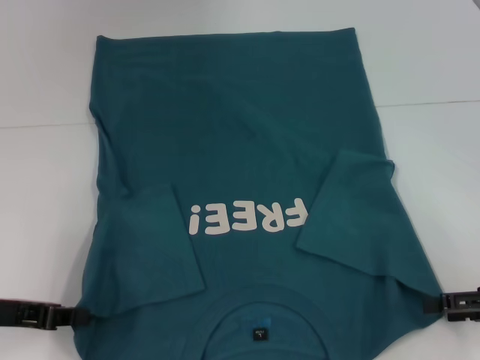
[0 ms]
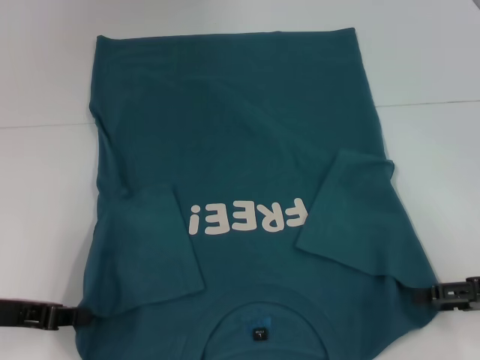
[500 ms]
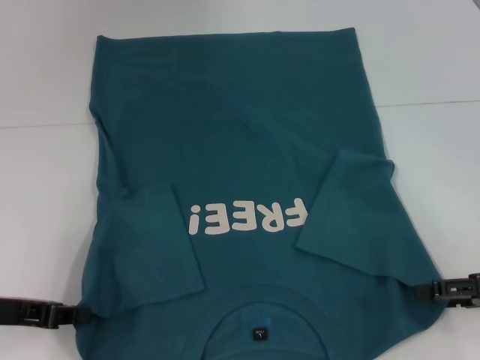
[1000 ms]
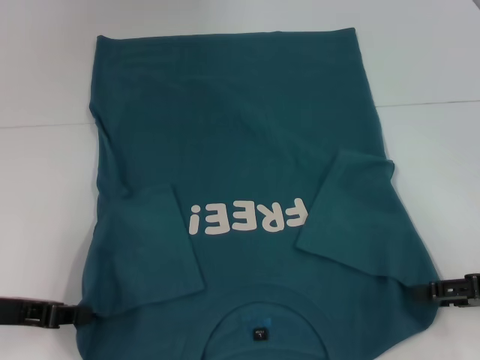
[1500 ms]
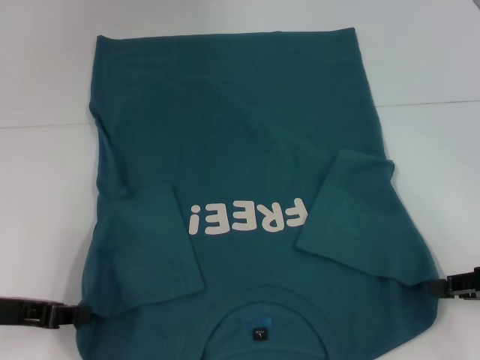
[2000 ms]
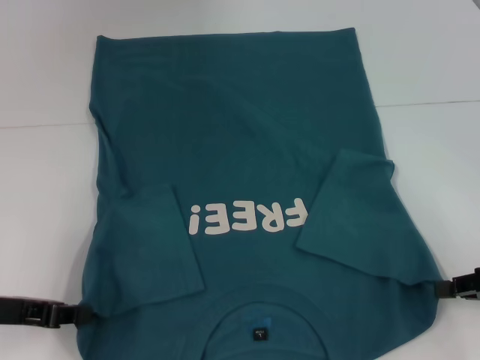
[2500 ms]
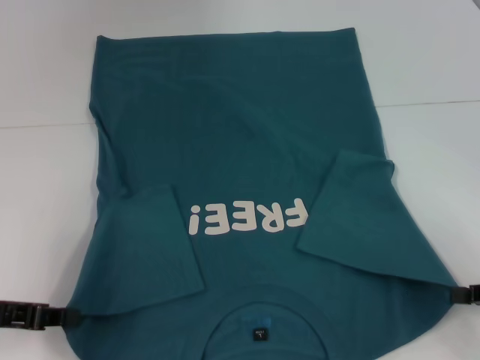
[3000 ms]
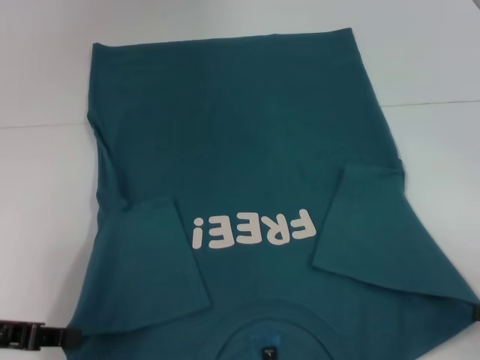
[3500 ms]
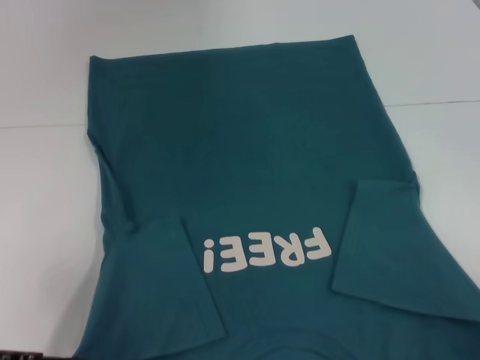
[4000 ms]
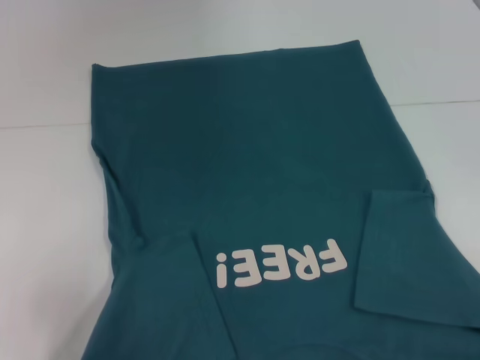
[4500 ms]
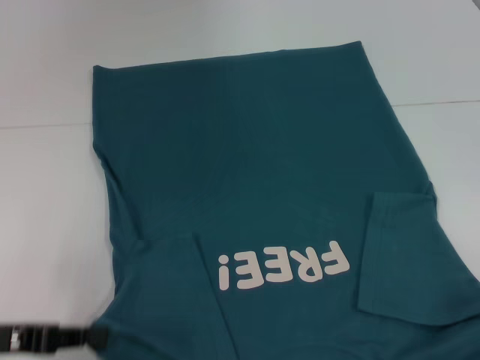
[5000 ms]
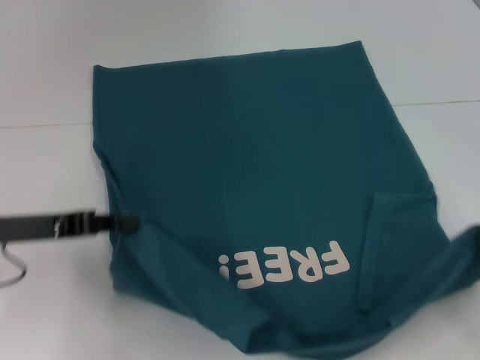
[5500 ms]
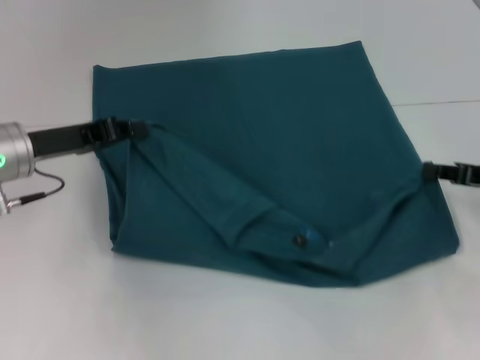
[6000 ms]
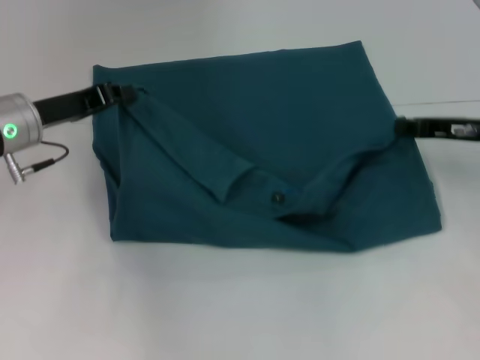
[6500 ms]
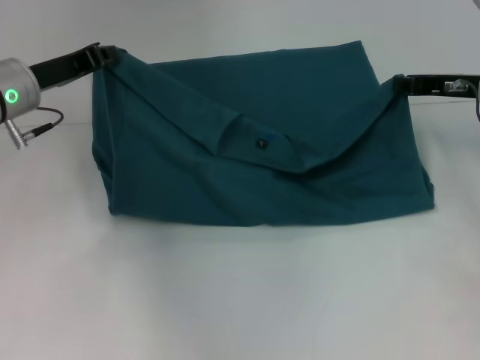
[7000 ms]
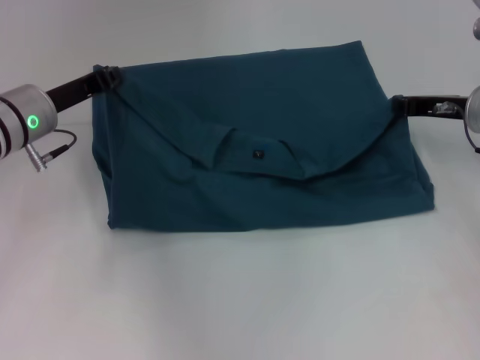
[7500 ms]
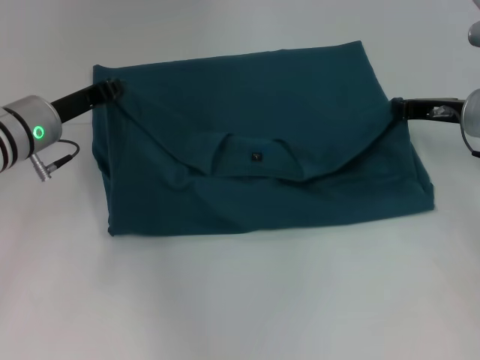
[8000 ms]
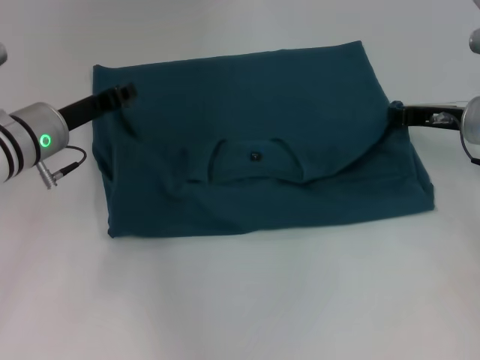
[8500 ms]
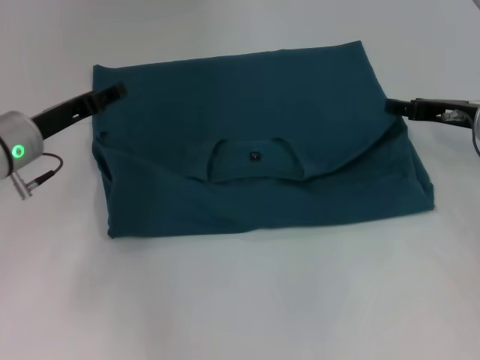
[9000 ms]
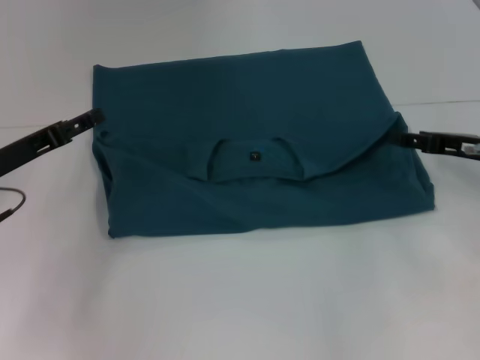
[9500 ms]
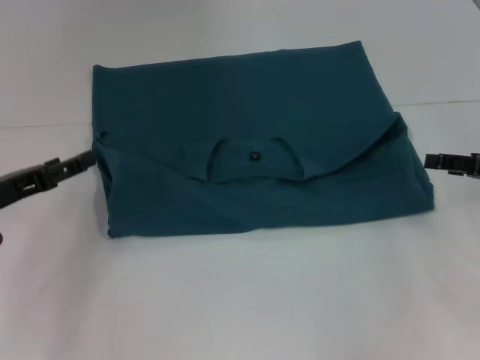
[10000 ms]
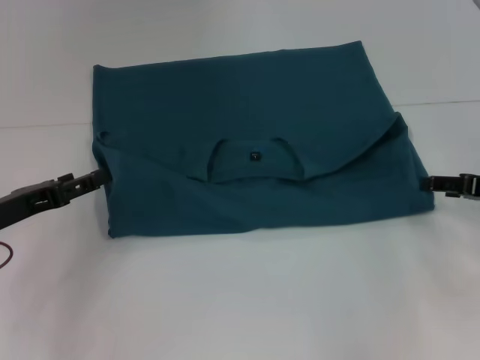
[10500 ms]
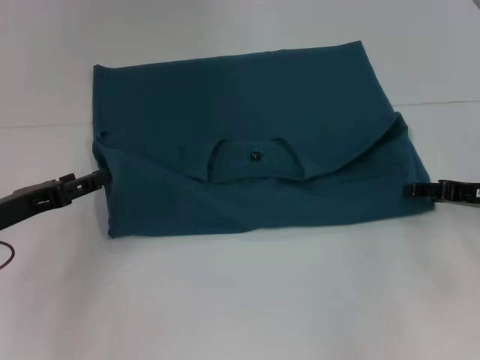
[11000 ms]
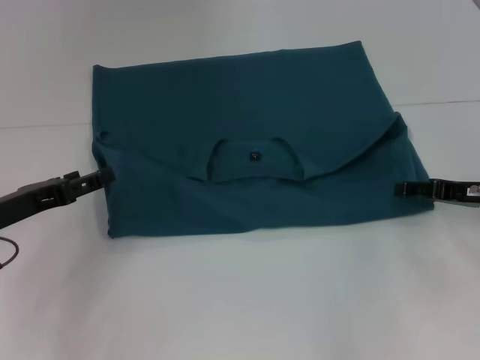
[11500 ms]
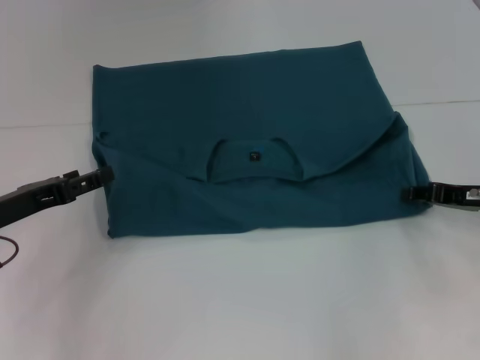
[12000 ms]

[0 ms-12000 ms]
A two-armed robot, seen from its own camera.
Step, 0 ms to 2500 ms: Grab the bottom right corner with your right hand.
Step, 3000 ms to 8500 ms: Fold the clothes to the left.
Step, 3000 ms to 8500 ms: Fold the clothes to the right.
0 ms to 2000 ms: The right gripper closes.
2000 ms to 4000 ms: The right gripper travels backward by about 10 cm, and closes up.
4000 ms to 6000 ms: The right gripper goes approximately 20 cm forward. The left gripper shifts some 15 cm forward and to the right.
6000 ms to 8000 ms: The right gripper travels forward and to the left by some 10 cm.
8000 ms to 10000 ms: The left gripper travels backward and to the left by about 15 cm, and opens up. Meanwhile the right gripper shifts about 10 cm backward and to the right, and opens up.
10000 ms to 12000 ms: The right gripper shifts by about 5 cm.

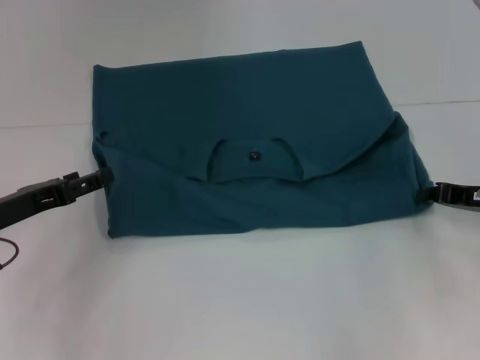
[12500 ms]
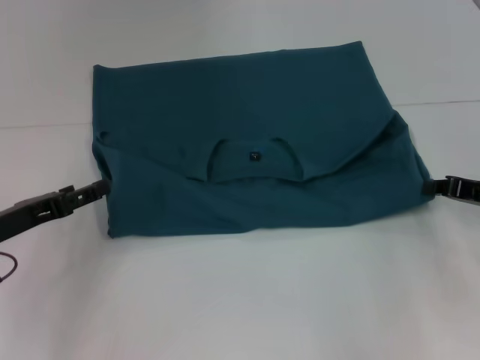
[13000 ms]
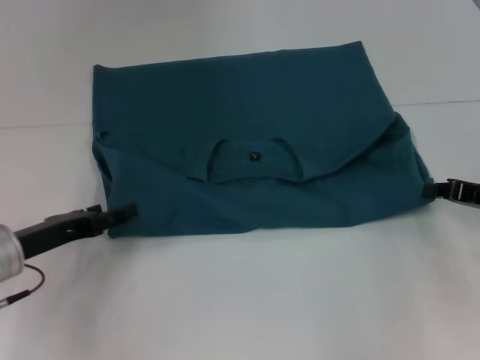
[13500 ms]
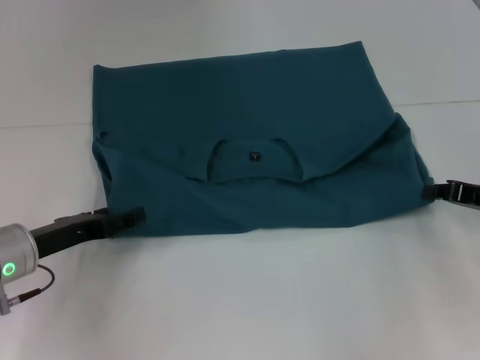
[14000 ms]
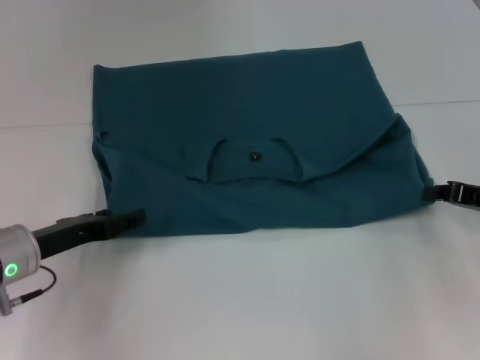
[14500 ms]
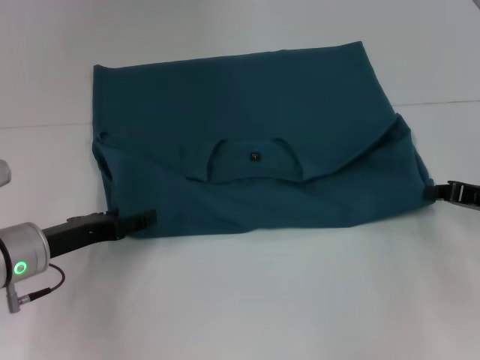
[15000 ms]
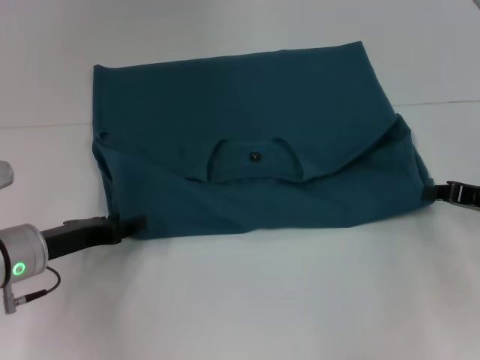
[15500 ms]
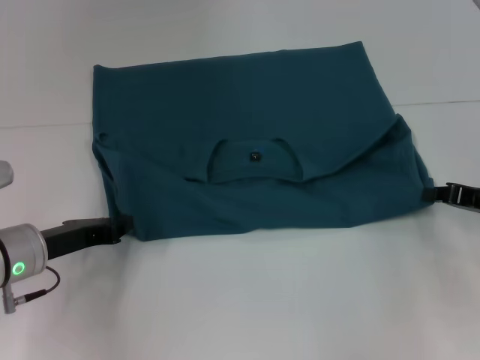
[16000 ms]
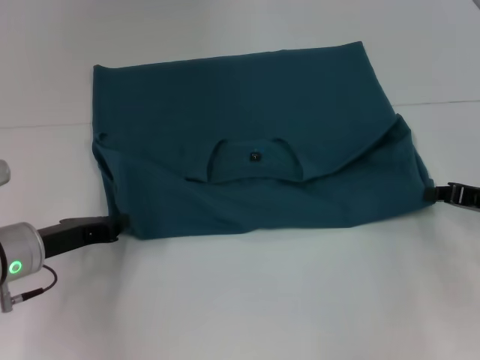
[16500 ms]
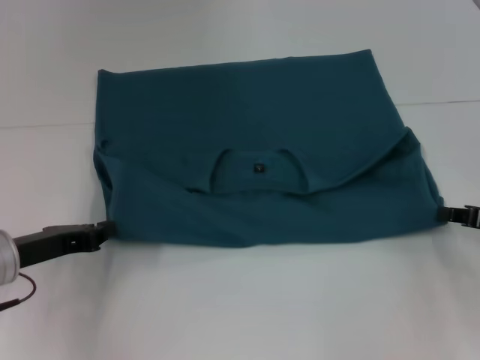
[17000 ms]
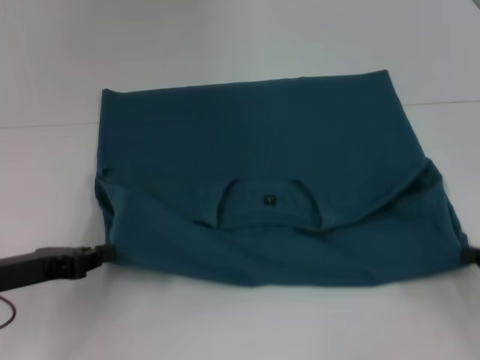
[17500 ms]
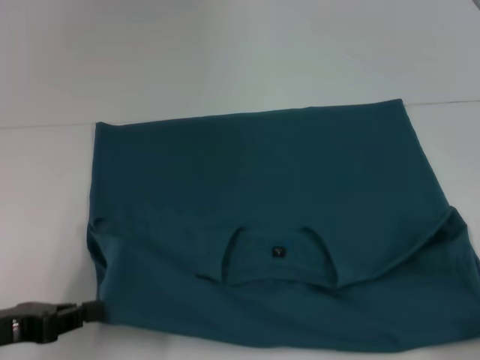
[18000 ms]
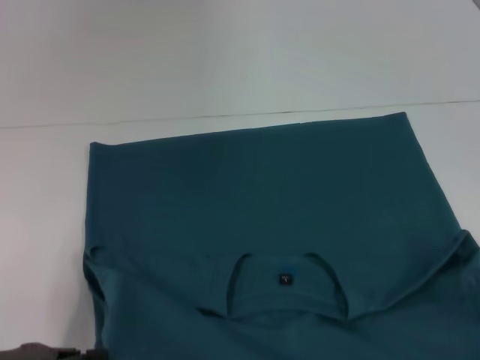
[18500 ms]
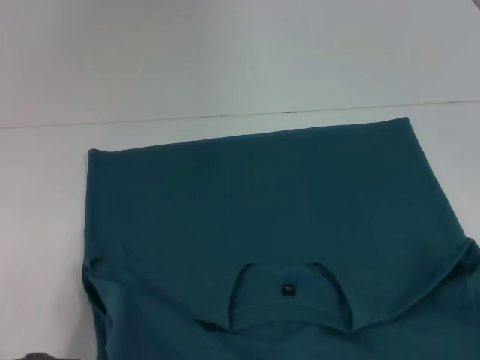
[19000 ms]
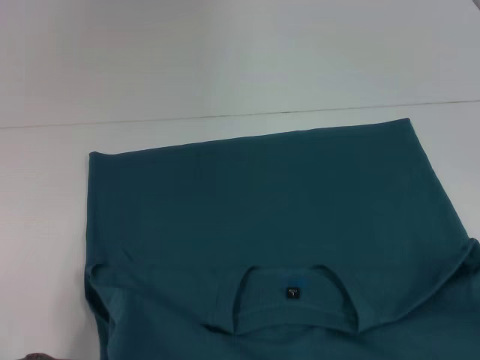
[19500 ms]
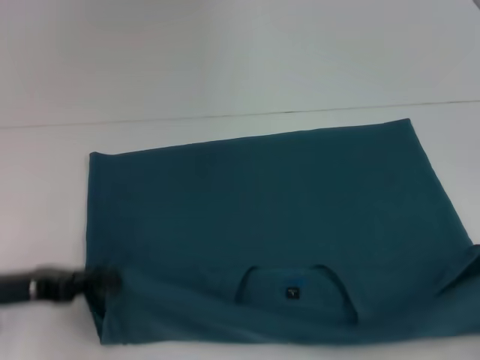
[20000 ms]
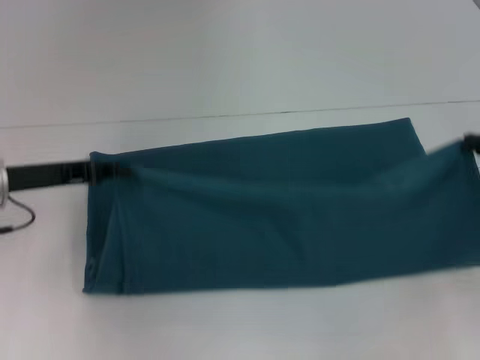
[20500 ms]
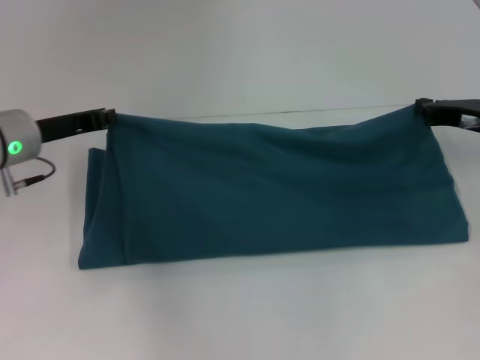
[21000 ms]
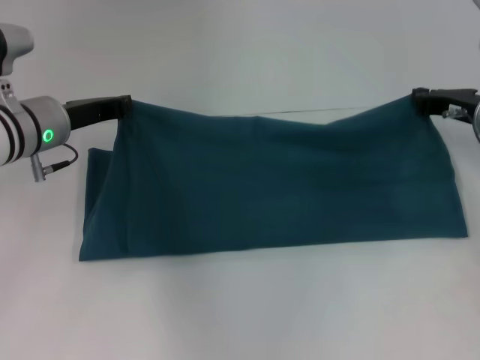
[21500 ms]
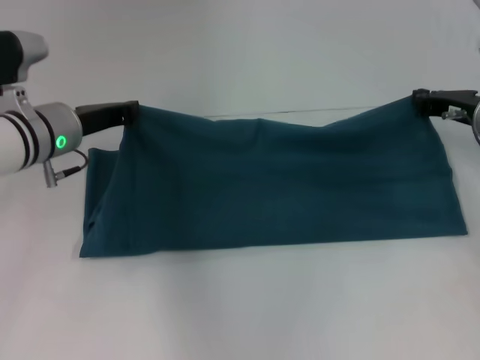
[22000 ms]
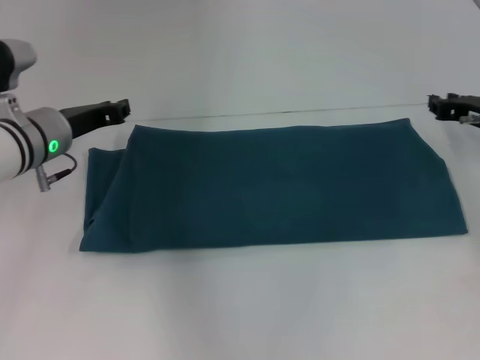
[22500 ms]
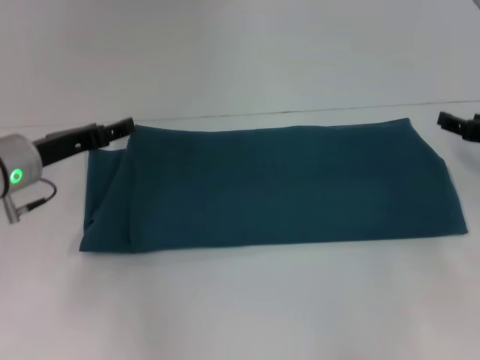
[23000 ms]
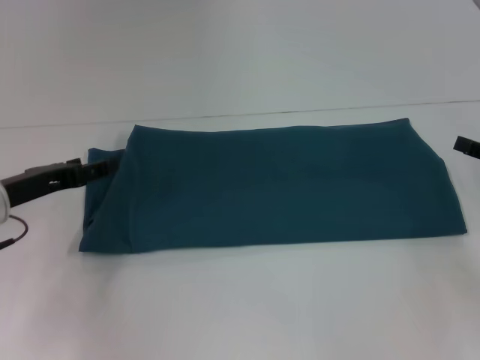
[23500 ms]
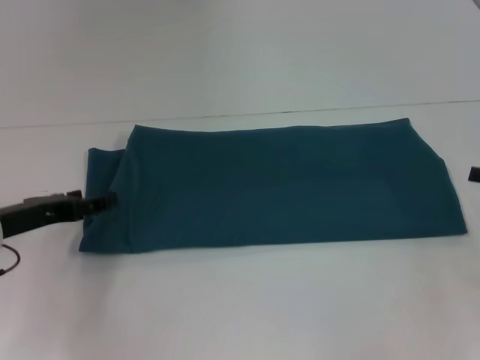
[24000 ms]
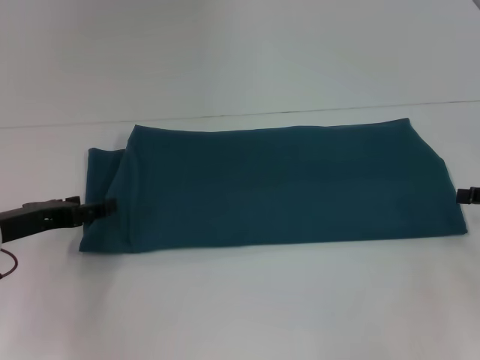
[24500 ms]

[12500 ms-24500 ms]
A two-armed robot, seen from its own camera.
Step, 12500 ms to 19000 ms: Pull the clothes with your left hand.
Step, 12500 ms to 19000 ms: Pull the clothes with your right hand.
Step, 19500 ms to 22500 ms: Fold the clothes to the right.
12500 ms to 14500 ms: The left gripper shifts by approximately 5 cm.
14500 ms to 16500 ms: The left gripper closes its fingers.
16500 ms to 18500 ms: The left gripper goes some 15 cm backward and to the left, while the right gripper travels backward by about 20 cm.
18500 ms to 20500 ms: The grippers both shift forward by about 15 cm.
20500 ms to 22500 ms: The right gripper travels forward and to the left by roughly 10 cm, while the left gripper heads forward and to the right, covering about 10 cm.
22500 ms to 24500 ms: The right gripper shifts some 15 cm backward and to the right, and opens, while the left gripper is displaced backward and to the left by approximately 10 cm, and opens its fingers.

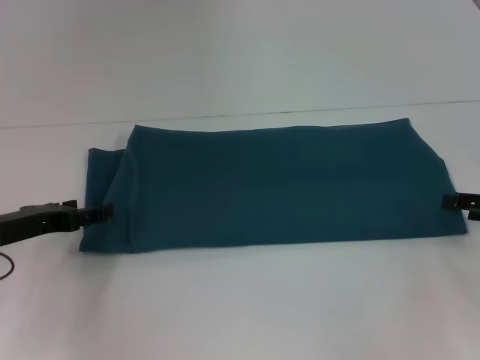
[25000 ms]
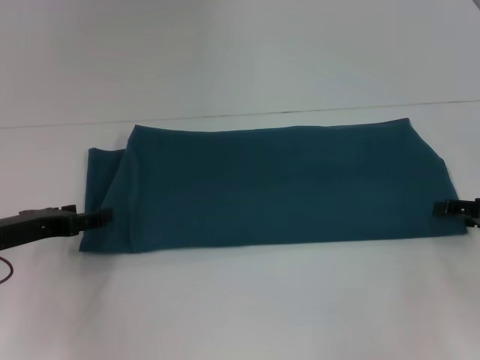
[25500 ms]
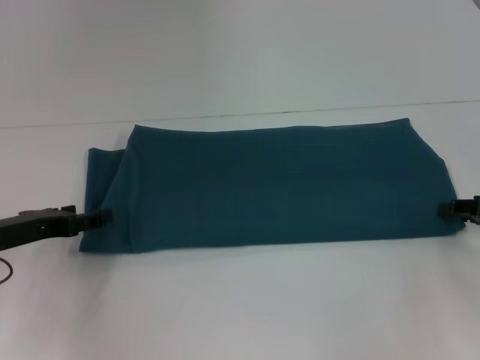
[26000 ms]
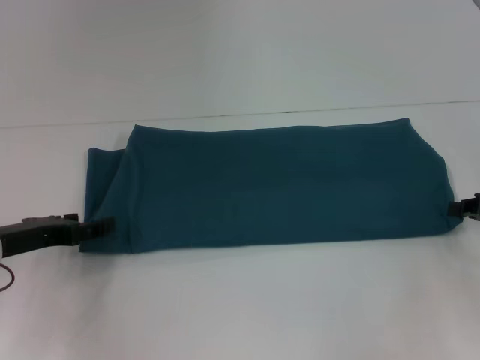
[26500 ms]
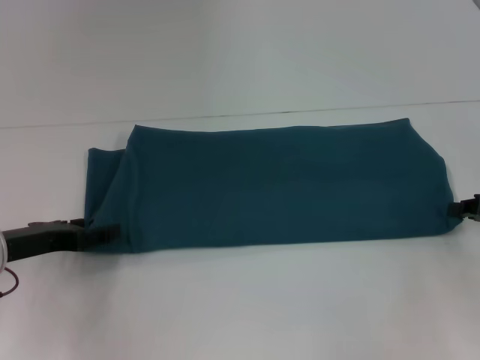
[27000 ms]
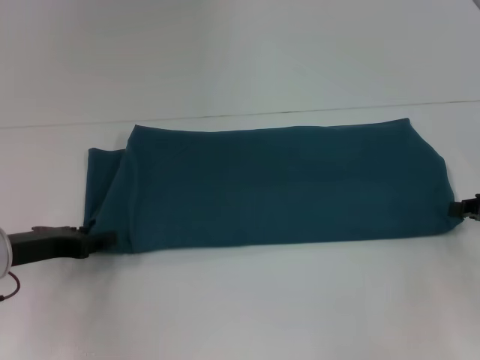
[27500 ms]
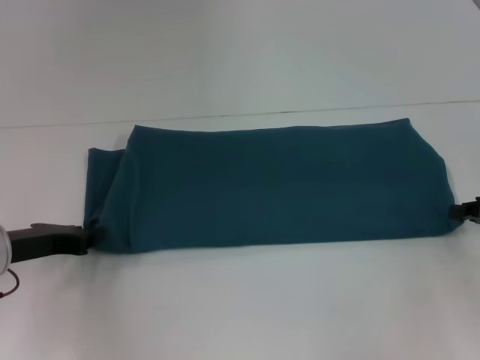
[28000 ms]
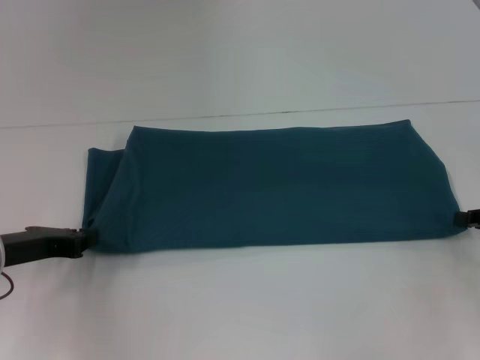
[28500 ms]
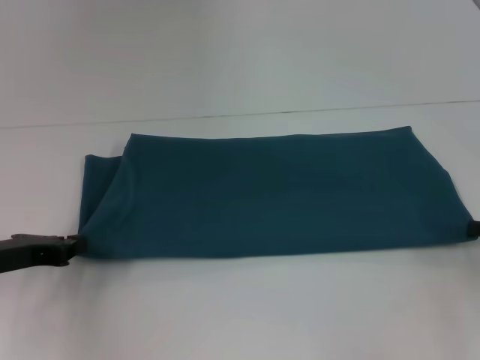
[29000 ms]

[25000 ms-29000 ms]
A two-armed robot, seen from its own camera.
27000 ms to 29000 ms: The left gripper closes up.
